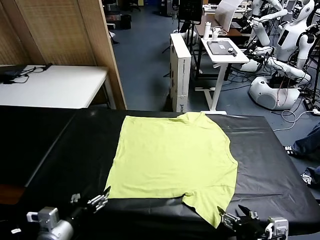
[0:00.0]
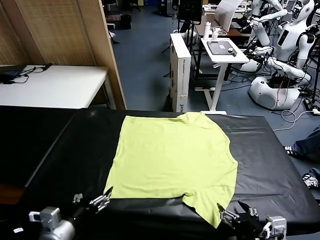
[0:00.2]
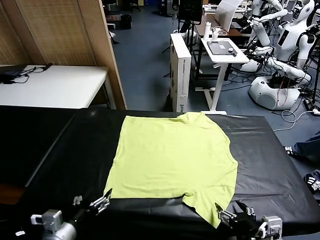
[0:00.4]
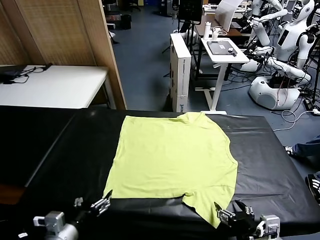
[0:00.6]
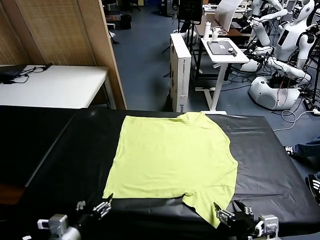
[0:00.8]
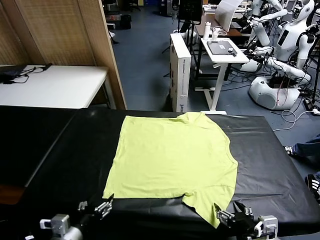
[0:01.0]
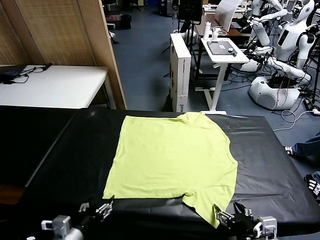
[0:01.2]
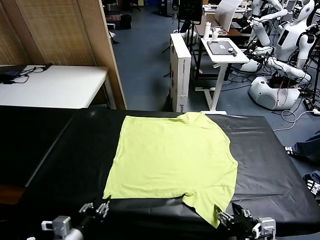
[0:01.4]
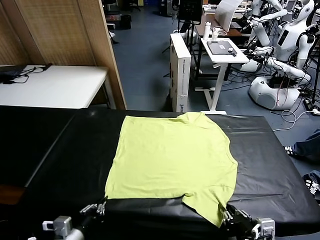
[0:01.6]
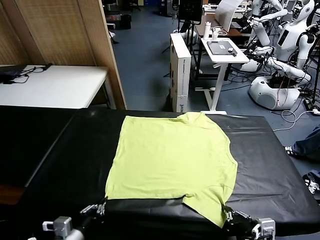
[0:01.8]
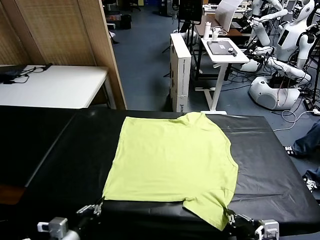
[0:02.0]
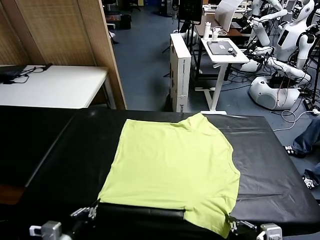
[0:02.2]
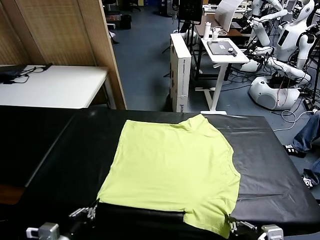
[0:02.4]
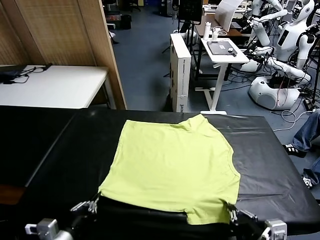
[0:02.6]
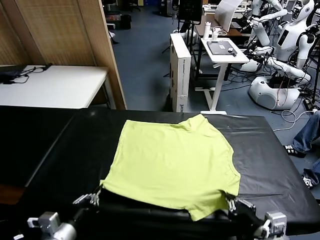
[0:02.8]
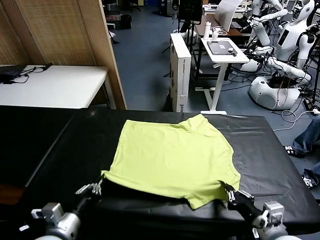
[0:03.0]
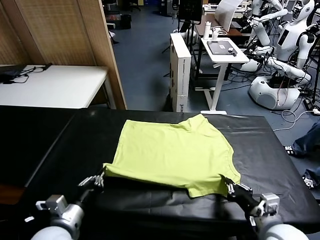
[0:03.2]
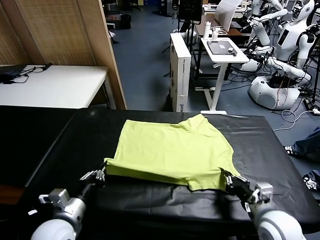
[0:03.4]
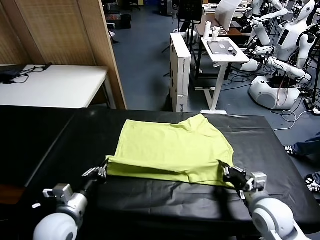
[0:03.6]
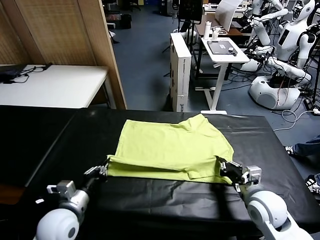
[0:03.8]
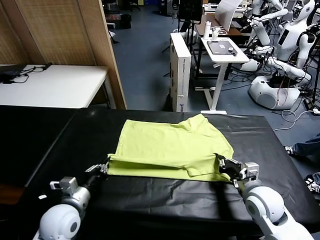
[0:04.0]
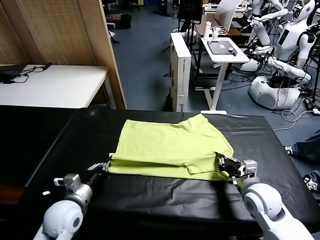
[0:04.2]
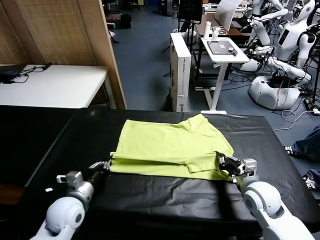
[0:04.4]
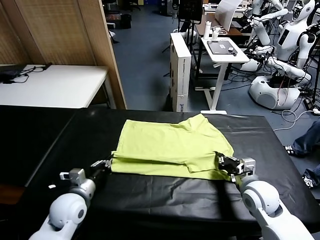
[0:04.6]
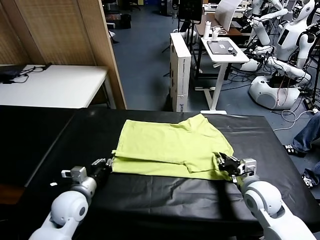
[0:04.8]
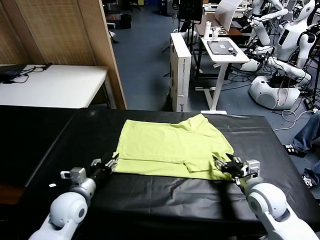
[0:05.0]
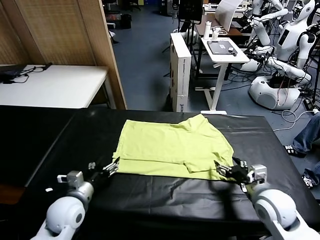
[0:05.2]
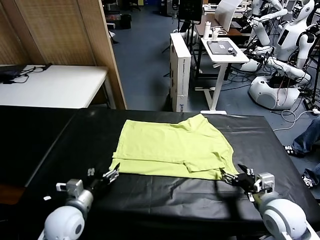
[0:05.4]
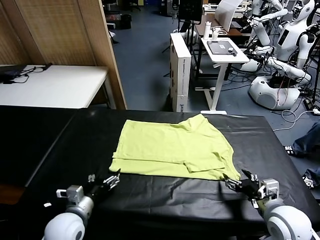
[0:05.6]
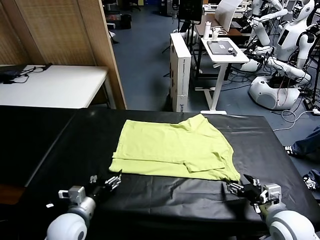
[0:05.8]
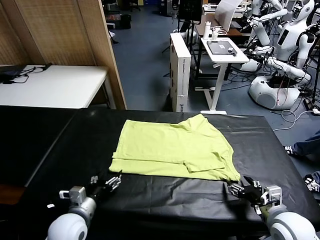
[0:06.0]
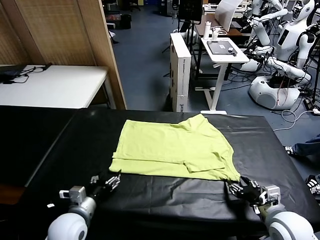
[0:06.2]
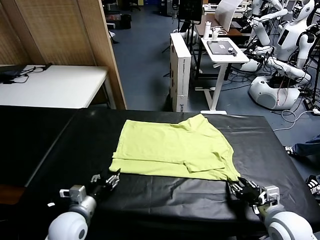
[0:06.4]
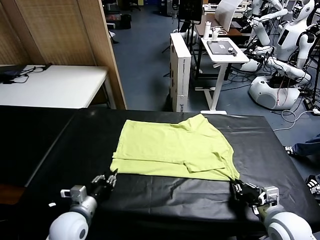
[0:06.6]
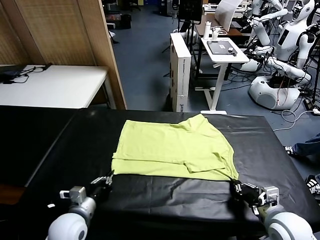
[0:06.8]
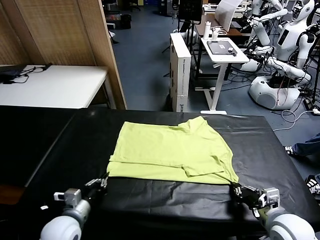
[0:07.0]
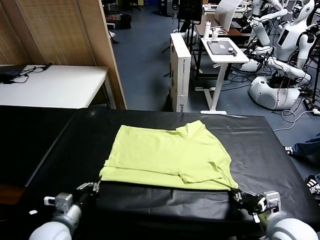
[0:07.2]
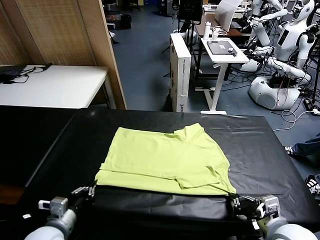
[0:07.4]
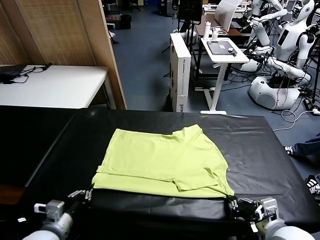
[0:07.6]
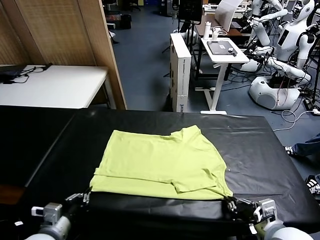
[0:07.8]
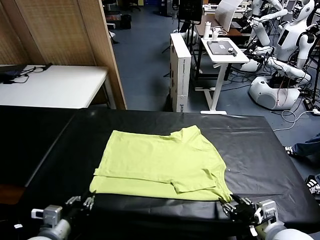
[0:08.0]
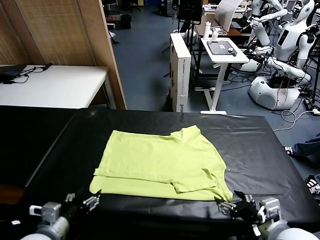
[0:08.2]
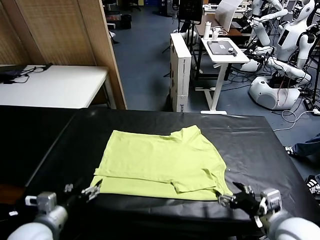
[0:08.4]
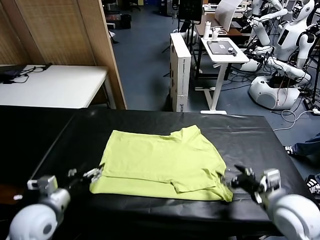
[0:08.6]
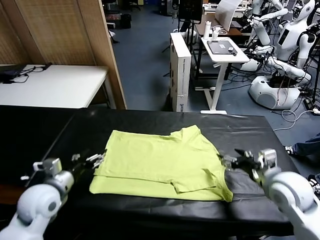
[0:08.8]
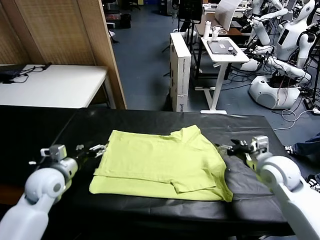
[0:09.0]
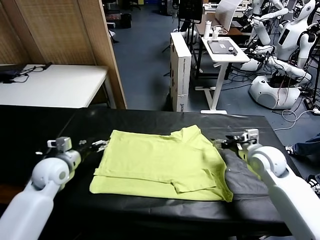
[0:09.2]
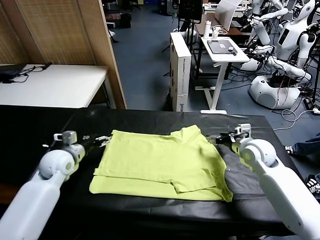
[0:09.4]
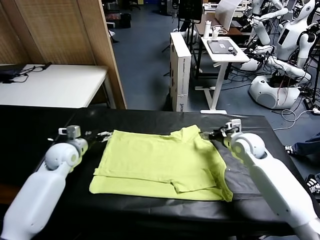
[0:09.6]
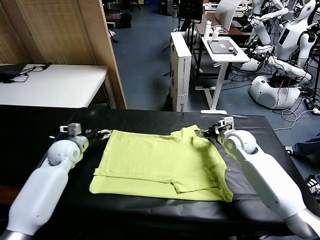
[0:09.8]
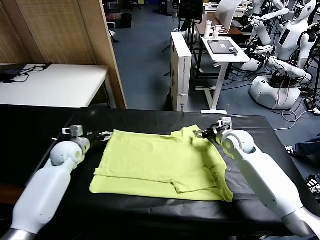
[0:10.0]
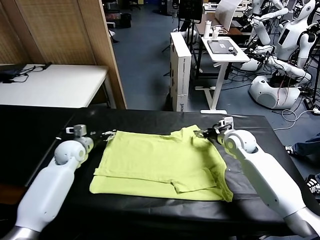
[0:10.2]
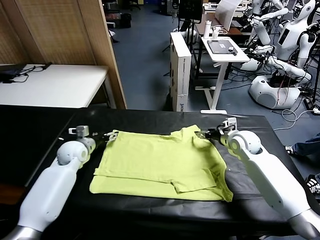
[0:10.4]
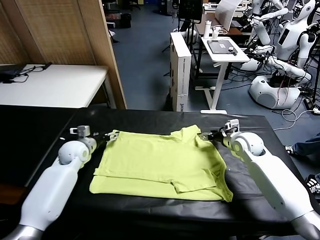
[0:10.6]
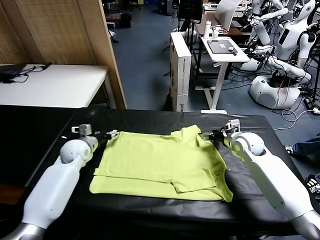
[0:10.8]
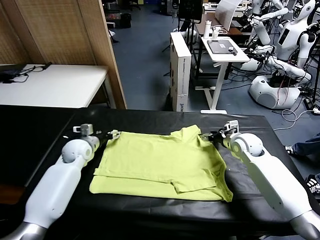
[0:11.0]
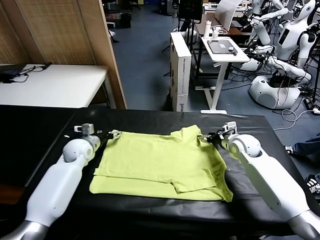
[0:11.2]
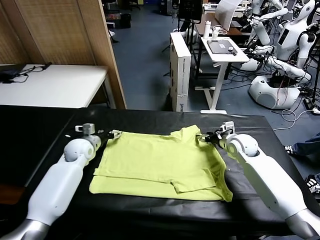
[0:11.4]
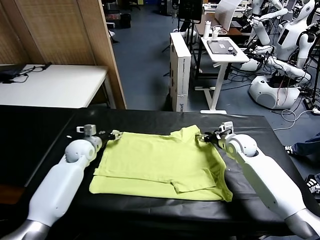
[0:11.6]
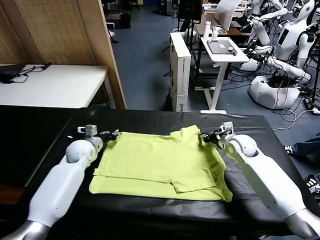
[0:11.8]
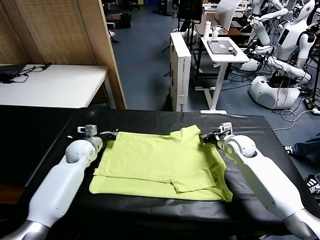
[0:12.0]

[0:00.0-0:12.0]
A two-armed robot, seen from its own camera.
Task of the whole recording: fold and organize the clothes.
Step, 0.0 to 2.0 s: use both grippers simultaneously to clamp the lower edge of the clothing fabric.
Step, 2.4 to 5.0 s: use both grippers to drag the lower edge of the fabric forward and fold it over the upper edge.
Step, 5.2 to 8.0 s: Drag the clothes downward with both gripper.
1.6 to 3.0 s: The right gripper travels forward by about 5 cm. The left gripper moves roughly 5 cm.
3.0 to 4.4 s: Both grippers travel together forward, approximately 10 cm.
4.4 to 6.0 s: The right gripper travels backward by some 10 cm, and opens its fingers, while the left gripper ends up roughly 5 cm from where it was, and opens up.
6.0 to 7.6 s: The left gripper shifts some 5 cm backward, and closes; the right gripper shifts by some 10 cm, and closes its fingers.
7.6 to 9.0 s: The two grippers go approximately 20 cm forward. The left gripper opens its fingers. The right gripper opens.
9.0 to 10.4 s: The left gripper moves forward and downward, approximately 15 cm. Meanwhile the right gripper travels forward by about 10 cm.
10.4 to 12.0 s: The right gripper closes its fingers. Meanwhile the left gripper closes up.

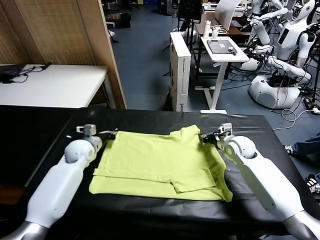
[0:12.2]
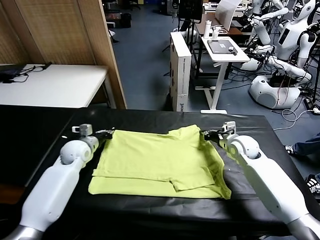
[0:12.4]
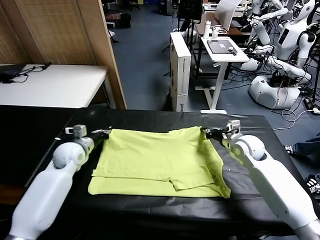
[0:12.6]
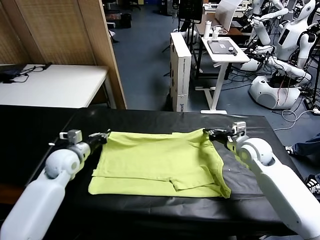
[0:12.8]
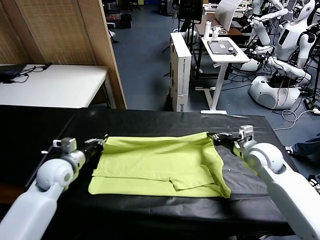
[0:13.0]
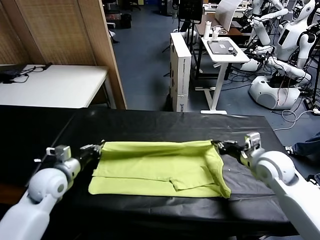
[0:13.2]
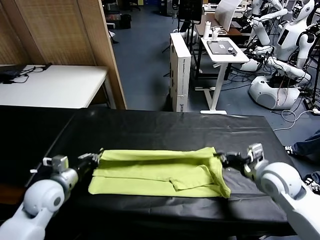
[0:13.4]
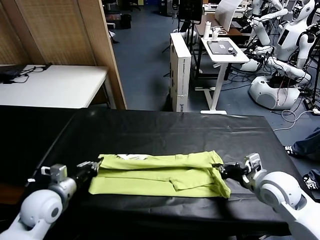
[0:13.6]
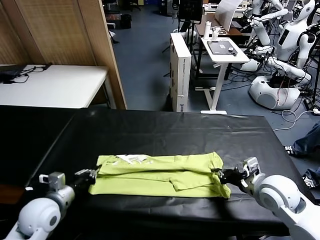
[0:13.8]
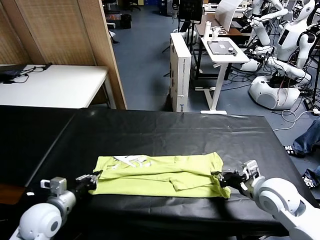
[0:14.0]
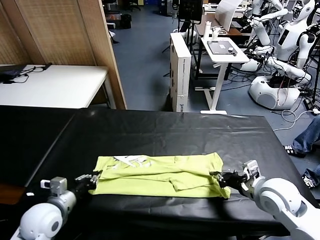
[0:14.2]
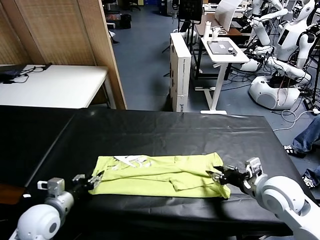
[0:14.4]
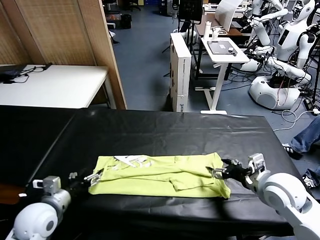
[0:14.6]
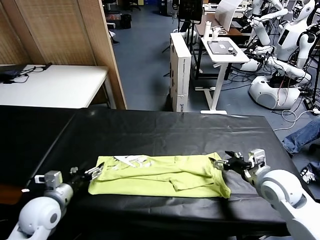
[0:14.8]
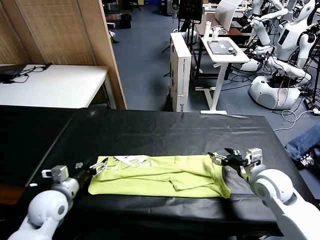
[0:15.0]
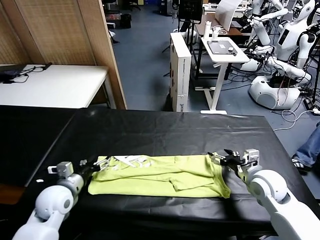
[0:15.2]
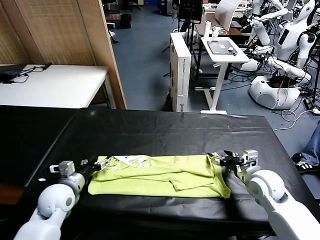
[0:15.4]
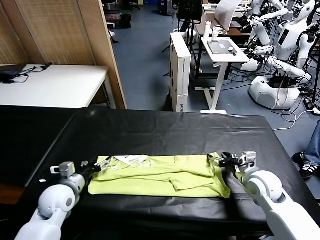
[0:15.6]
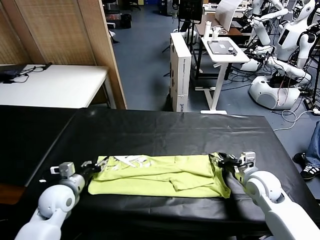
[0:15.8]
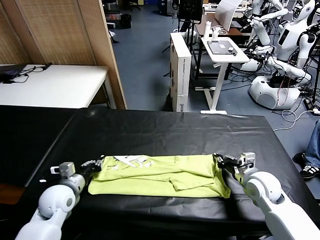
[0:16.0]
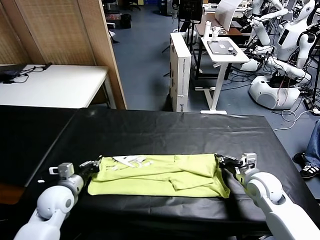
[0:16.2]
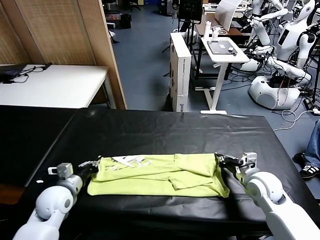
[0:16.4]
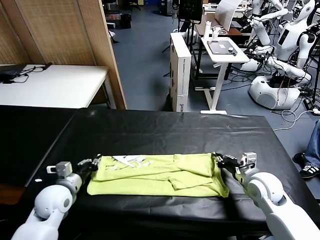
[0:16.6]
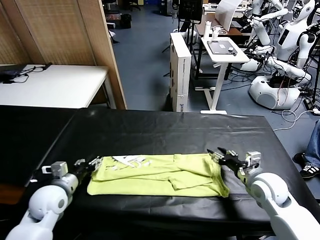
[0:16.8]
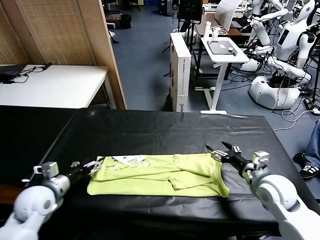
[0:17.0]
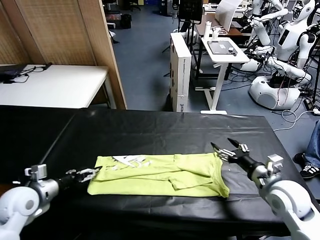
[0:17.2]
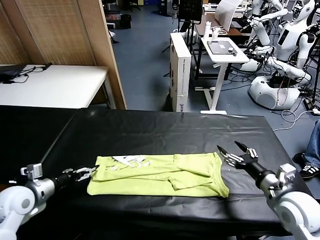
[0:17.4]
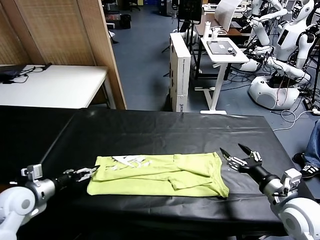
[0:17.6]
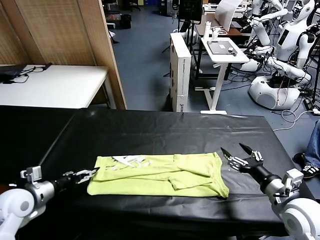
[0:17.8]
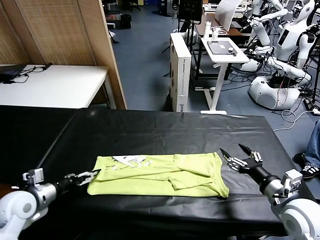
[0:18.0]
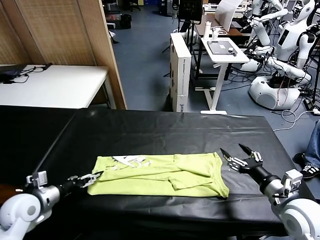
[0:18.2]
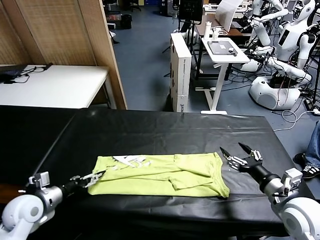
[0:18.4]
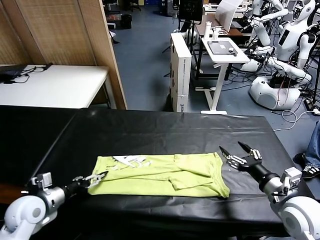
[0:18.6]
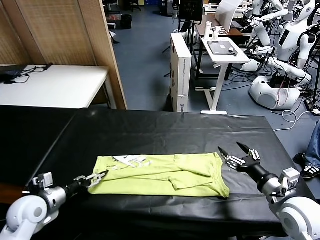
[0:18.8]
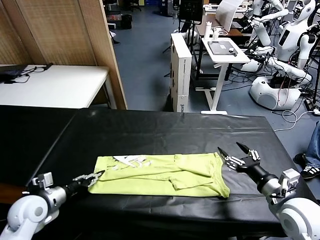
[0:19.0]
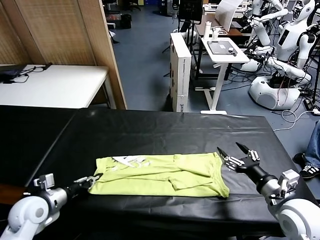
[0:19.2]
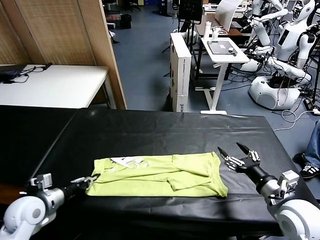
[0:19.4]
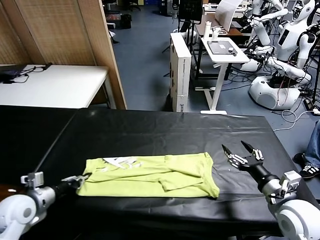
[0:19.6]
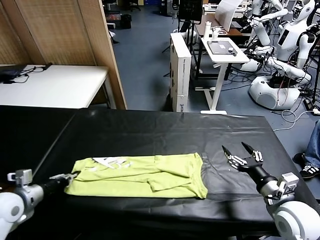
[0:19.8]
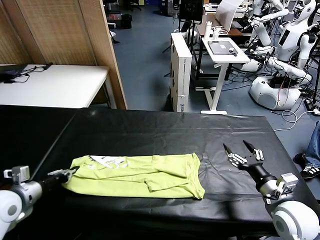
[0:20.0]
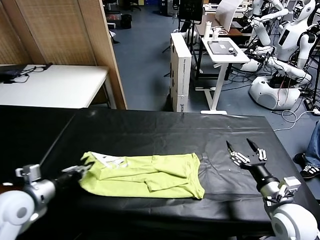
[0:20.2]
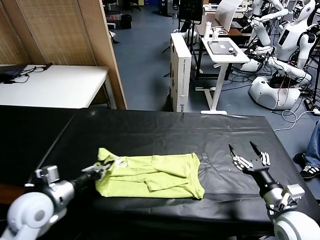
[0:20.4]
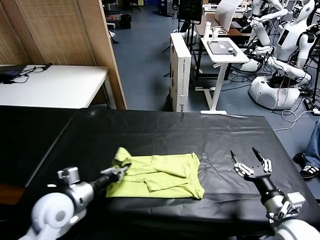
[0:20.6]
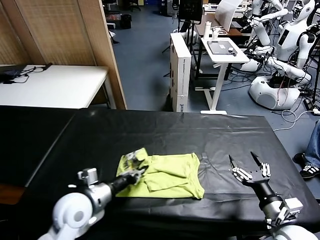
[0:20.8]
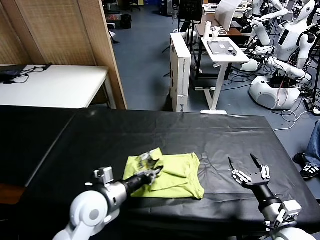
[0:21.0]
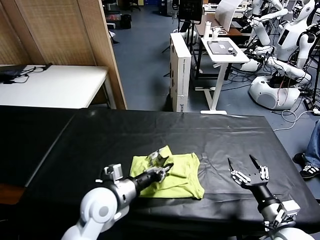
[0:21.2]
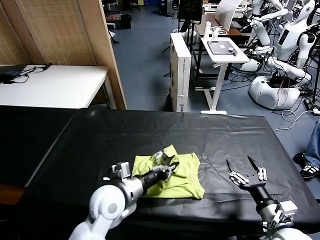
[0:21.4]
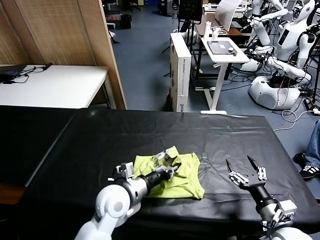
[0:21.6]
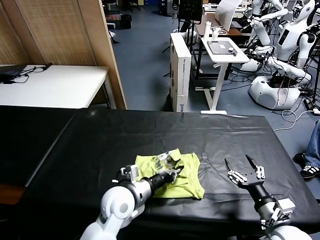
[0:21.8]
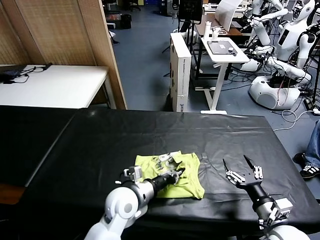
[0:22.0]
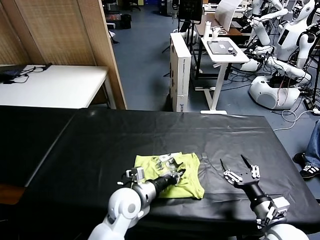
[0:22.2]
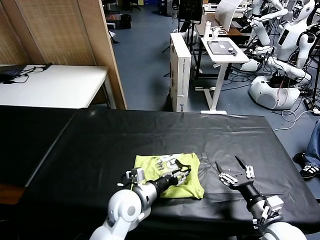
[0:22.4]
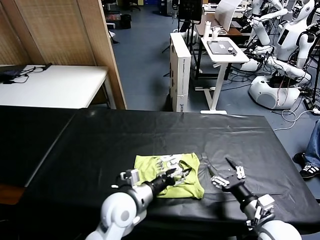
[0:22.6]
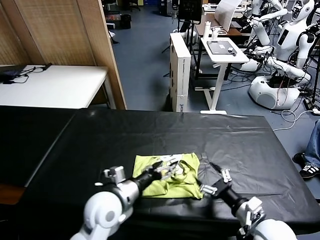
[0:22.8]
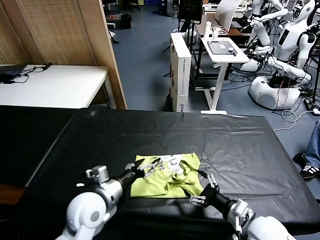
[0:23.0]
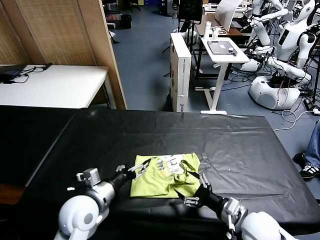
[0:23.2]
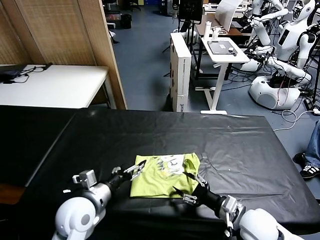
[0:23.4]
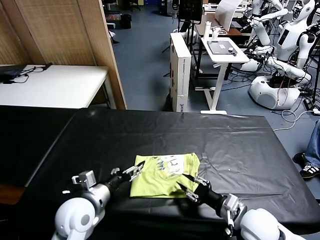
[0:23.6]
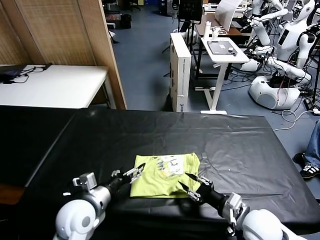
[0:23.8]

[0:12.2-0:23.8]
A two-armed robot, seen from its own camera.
Task of the whole recording: fold and organize the clothes.
Step, 12.4 to 14.4 s: use both grippers to drag the upper edge of the fabric backward and fold it over the lower edge.
Step, 14.6 to 19.2 s: use the left gripper to clamp the left edge of the fabric.
Step, 19.6 to 22.6 s: use the left gripper to drag the left edge of the fabric to the left and folds it over the right edge.
12.2 to 13.6 s: The two grippers go approximately 20 cm backward.
13.6 to 15.0 s: The left gripper opens its fingers. The right gripper opens.
15.0 to 16.6 s: The right gripper closes up. Meanwhile the left gripper closes its fingers.
16.6 to 18.0 s: The left gripper shifts some 10 cm to the left, and opens up; the right gripper heads backward, covering roughly 10 cm, and opens.
18.0 to 19.4 s: The left gripper closes its fingers.
19.4 to 21.0 s: The left gripper travels to the right by approximately 20 cm. Meanwhile the right gripper heads backward, covering some 5 cm.
21.0 to 22.4 s: The left gripper is displaced to the right by roughly 10 cm, and opens its fingers.
22.4 to 23.8 s: The left gripper travels to the left by roughly 10 cm, and opens up; the right gripper ends up roughly 5 cm from where it was, and closes up.
